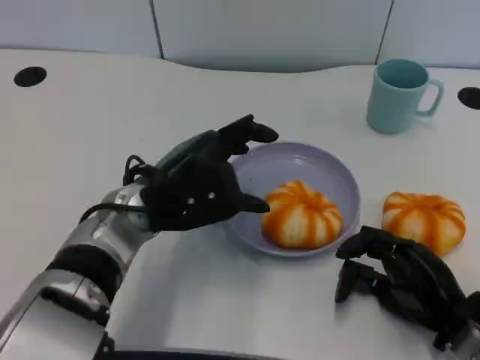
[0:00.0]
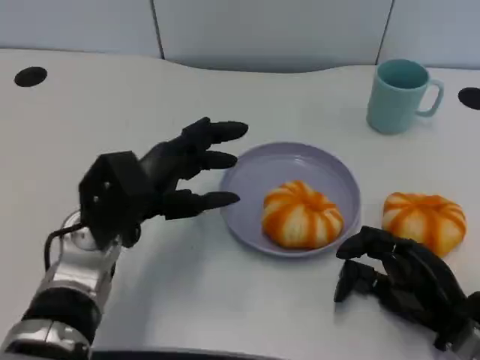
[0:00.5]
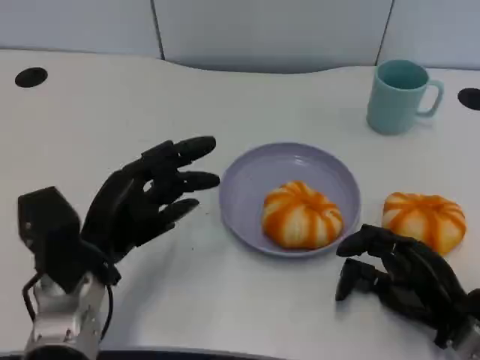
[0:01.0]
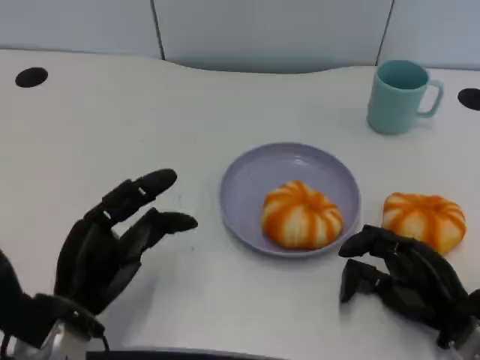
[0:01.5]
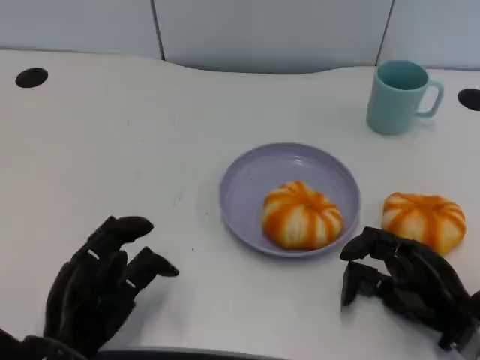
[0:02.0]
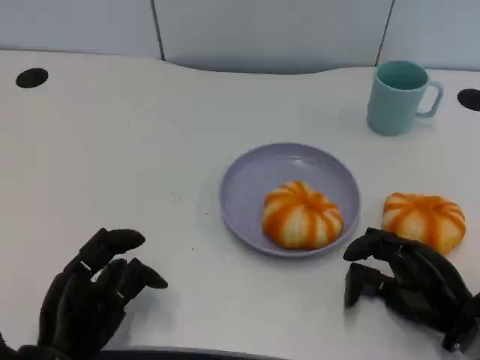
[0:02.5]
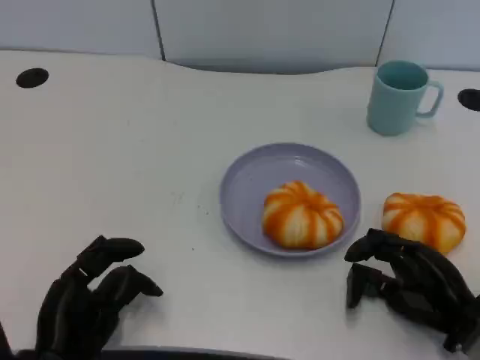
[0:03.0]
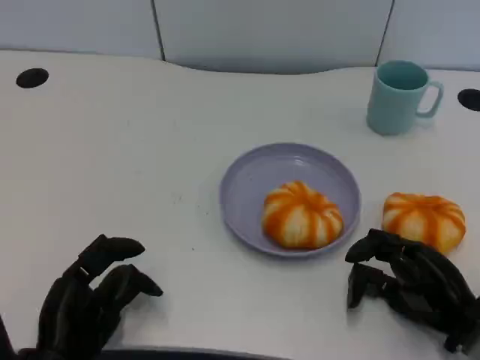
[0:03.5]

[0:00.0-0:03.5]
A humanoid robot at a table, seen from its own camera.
Task of the whole recording: Grasp the bread from the table and place it into the plate.
0:00.0 to 0:02.0: The left hand heads backward, to the left and downward, covering about 20 cm.
0:02.0 to 0:03.5: The hands make only small movements.

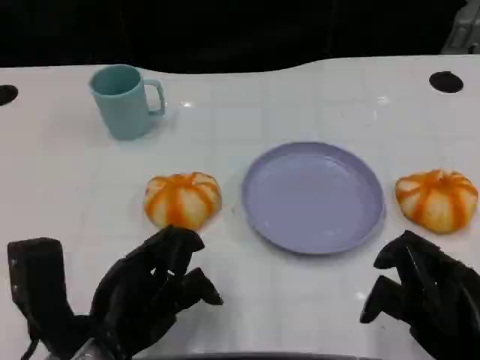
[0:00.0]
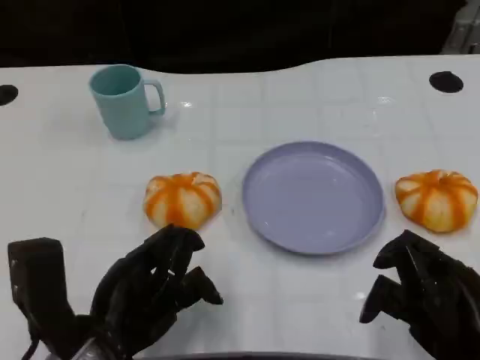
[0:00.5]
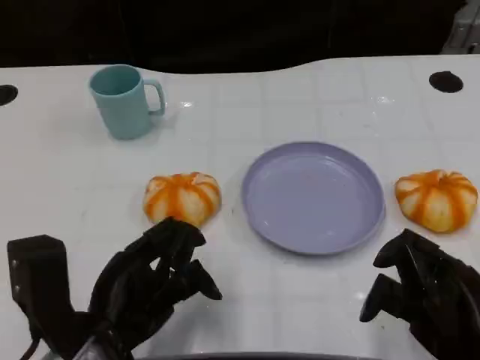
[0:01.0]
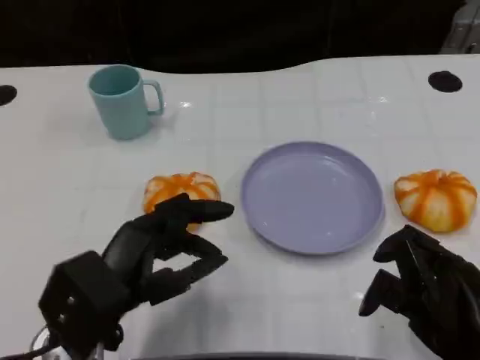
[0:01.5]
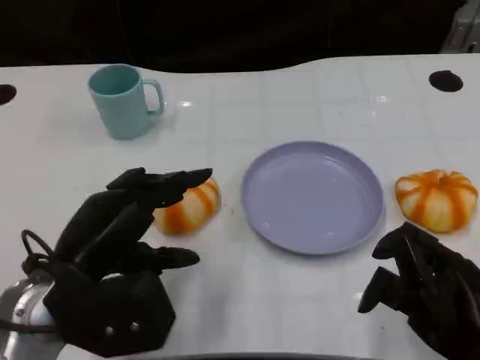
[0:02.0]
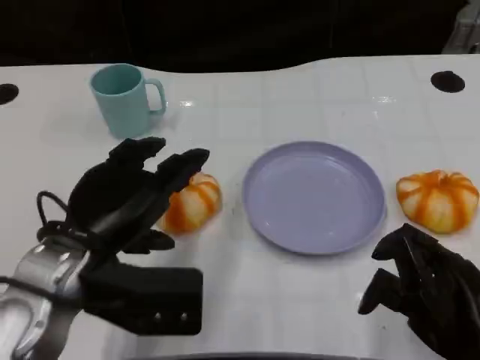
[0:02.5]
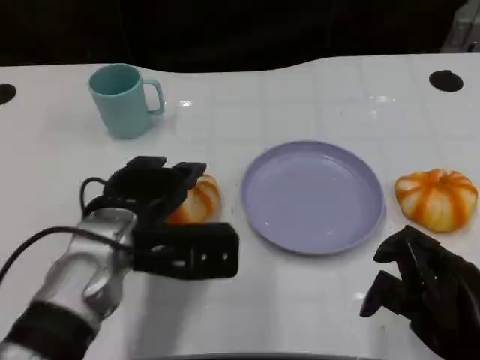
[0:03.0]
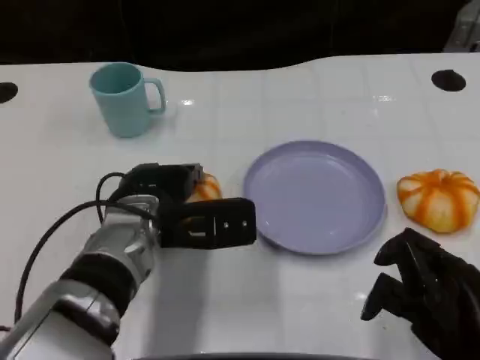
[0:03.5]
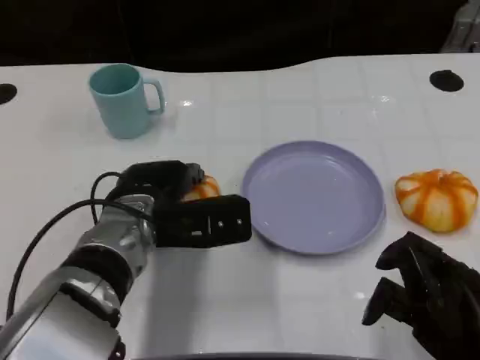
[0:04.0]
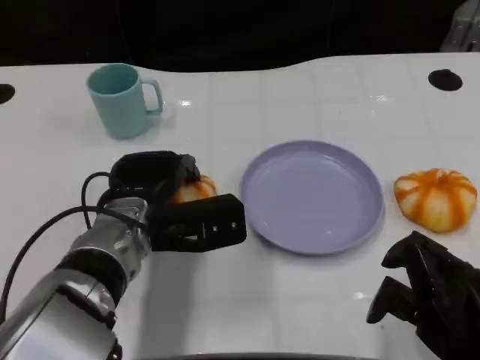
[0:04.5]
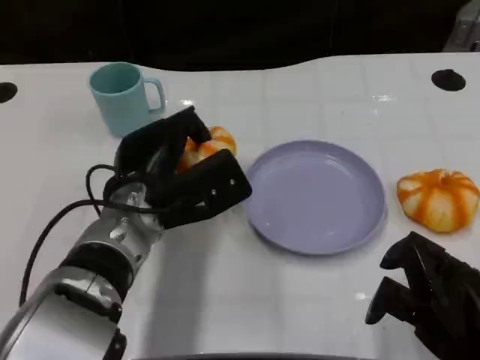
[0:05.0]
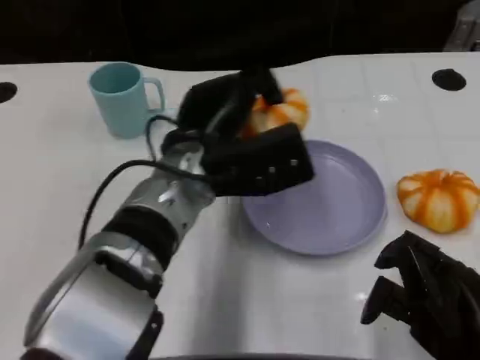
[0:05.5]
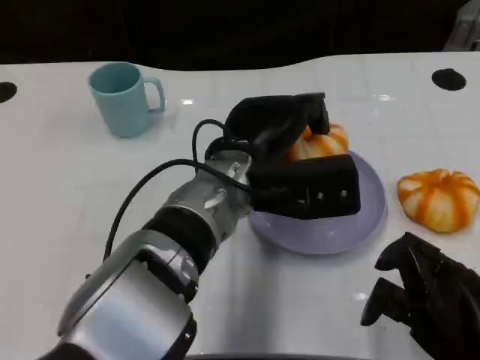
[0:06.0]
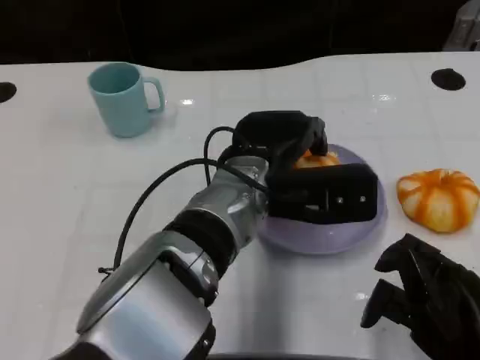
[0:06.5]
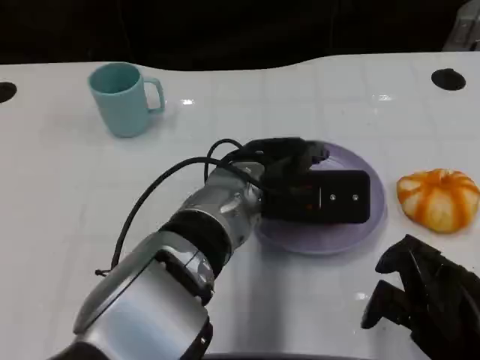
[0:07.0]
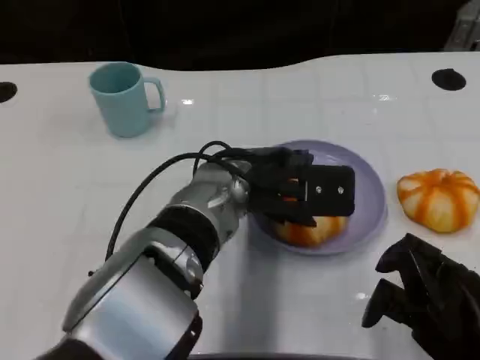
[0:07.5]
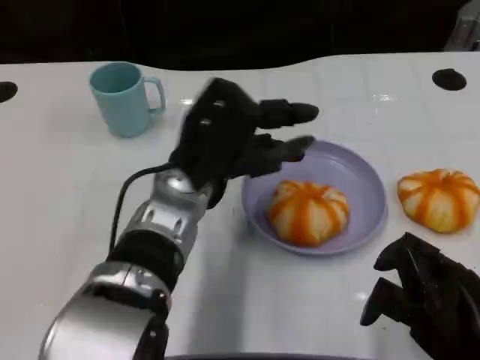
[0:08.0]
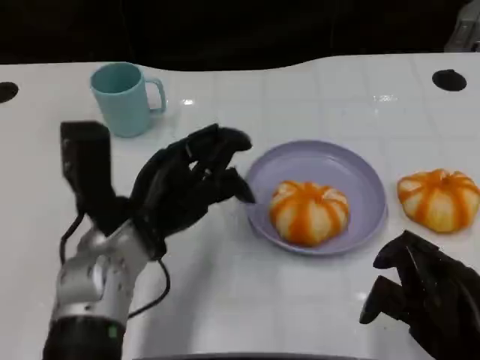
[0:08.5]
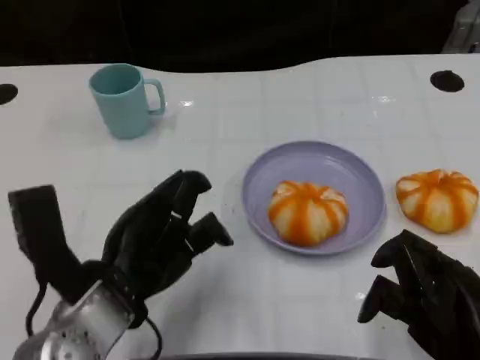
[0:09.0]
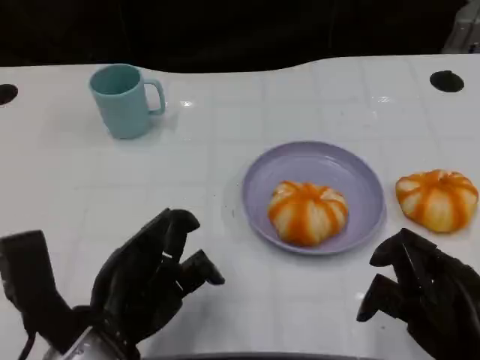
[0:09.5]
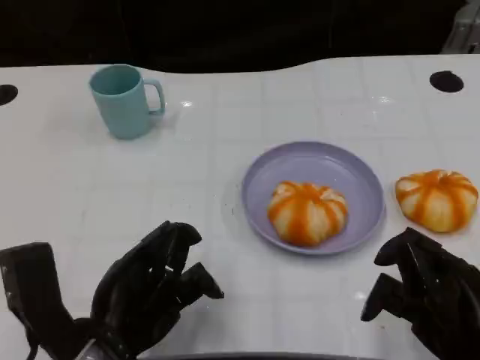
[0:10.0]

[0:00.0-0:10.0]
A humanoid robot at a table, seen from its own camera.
Task of the whole recording: Grasp the bread from the table and place it into the plate.
0:00.0 to 0:02.0: The left hand ends up roughly 5 cm from where it was.
0:02.0 to 0:04.0: The left hand moves forward and to the right, some 10 cm.
0:04.0 to 0:06.0: The left hand moves to the right and upward, about 10 cm.
0:06.0 to 0:08.0: The left hand moves to the left, about 5 cm.
0:08.0 to 0:10.0: The left hand goes approximately 15 cm backward and to the left.

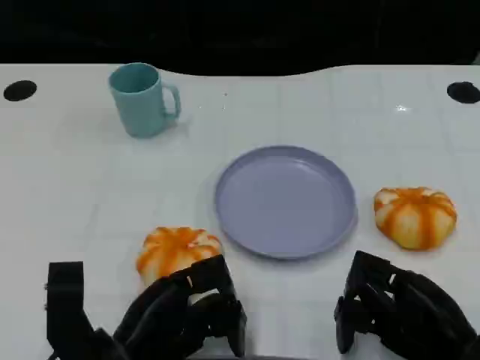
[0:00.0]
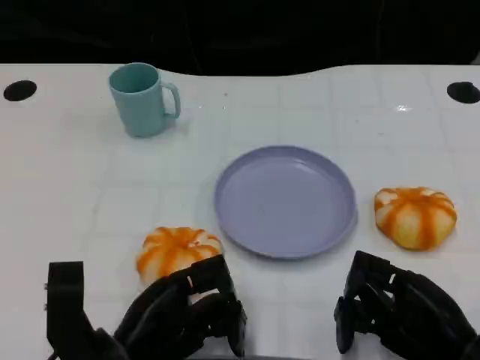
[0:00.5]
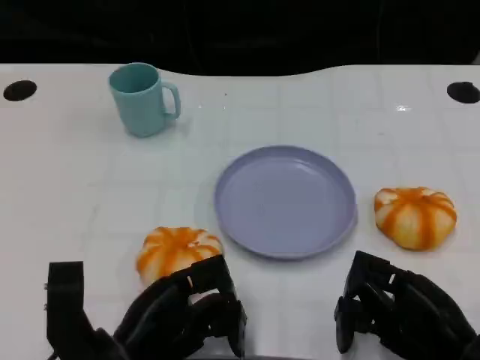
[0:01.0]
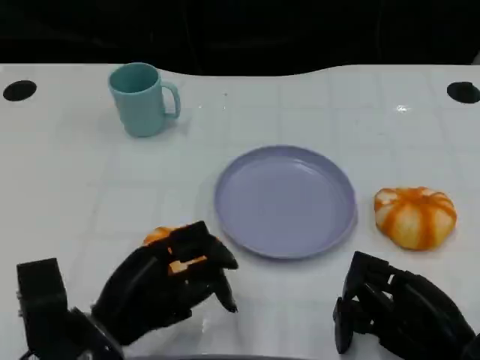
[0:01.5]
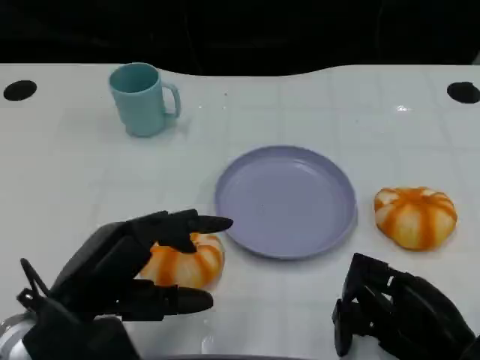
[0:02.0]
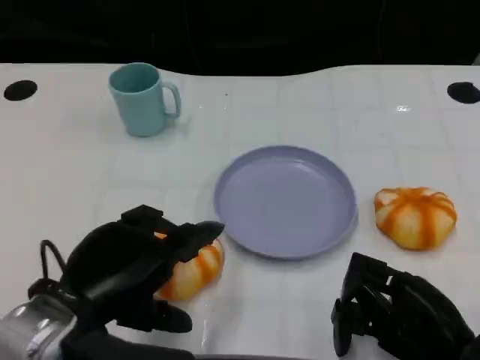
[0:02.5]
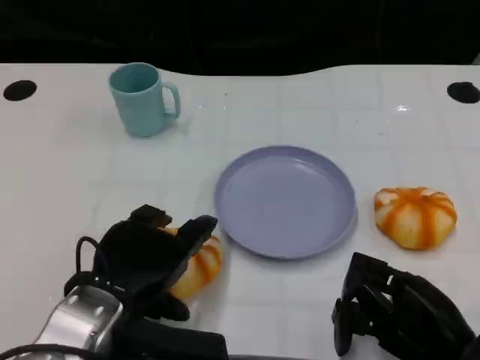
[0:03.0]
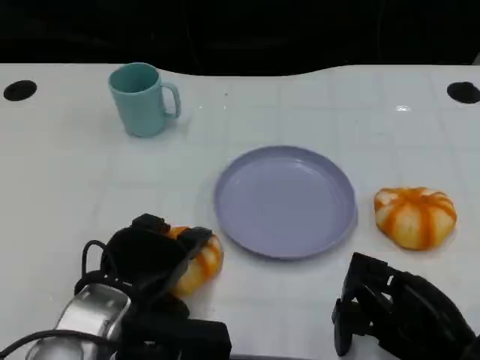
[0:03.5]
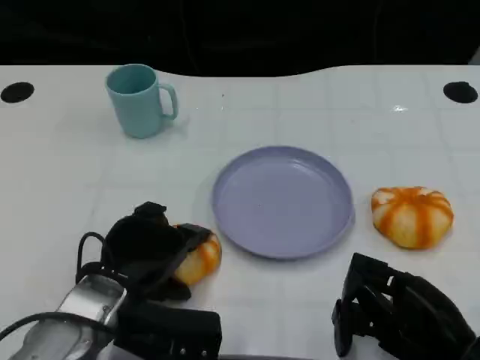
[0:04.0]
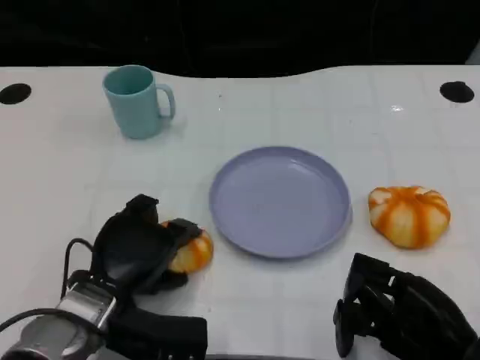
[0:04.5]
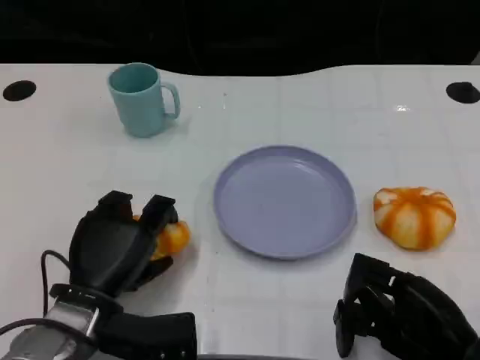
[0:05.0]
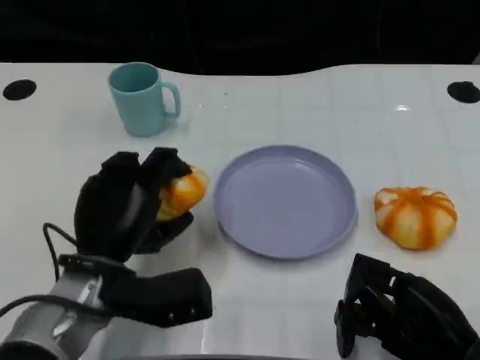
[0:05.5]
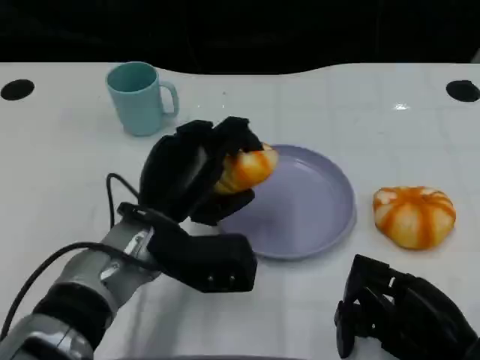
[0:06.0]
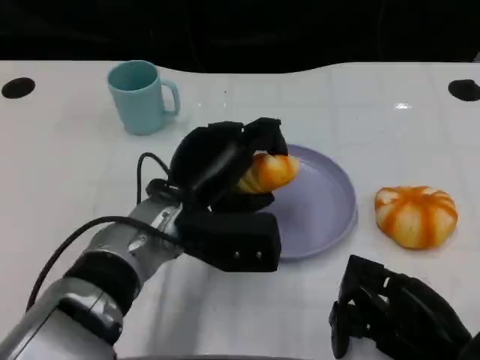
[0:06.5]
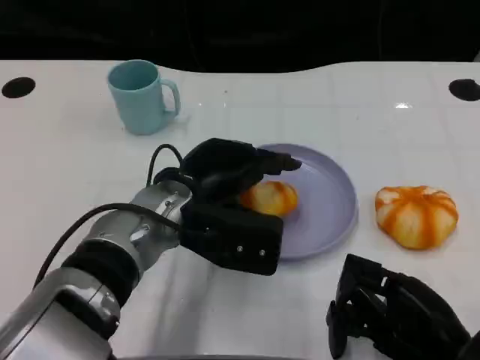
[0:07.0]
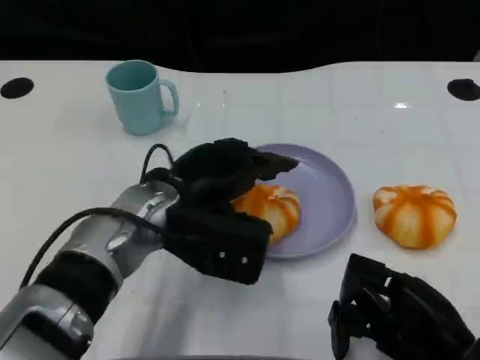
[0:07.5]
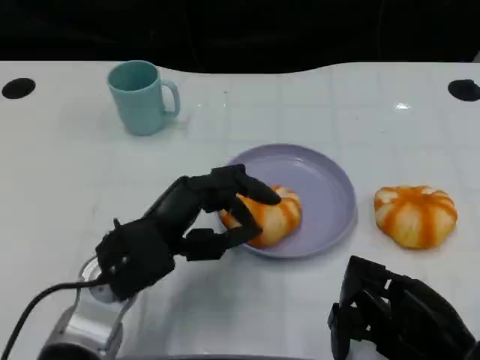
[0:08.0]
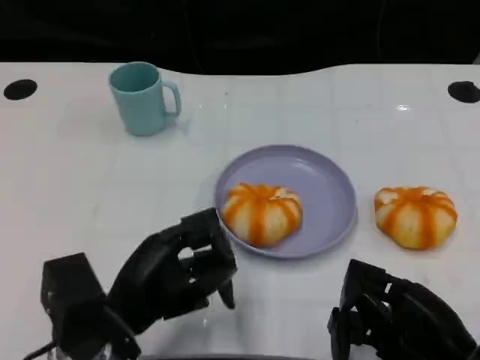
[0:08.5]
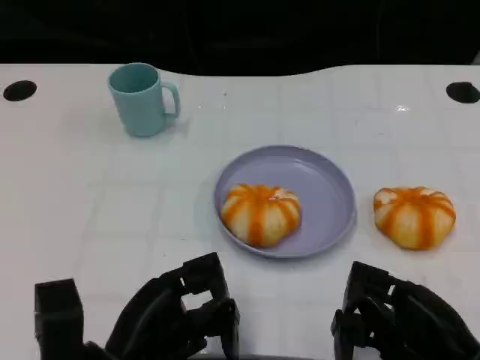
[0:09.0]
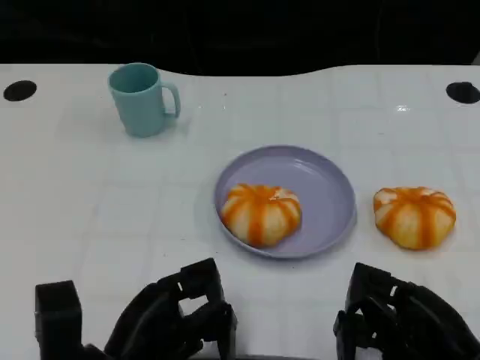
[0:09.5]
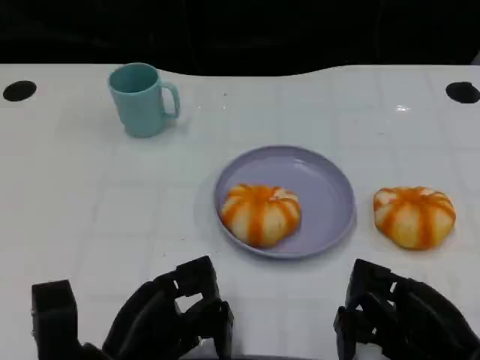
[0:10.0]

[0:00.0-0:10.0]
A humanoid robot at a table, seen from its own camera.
Task of the whole recording: Grasp the bread from the table and place it into the plate.
0:00.0 to 0:02.0: The left hand shifts about 10 cm upward.
0:02.0 to 0:04.0: The left hand moves downward and forward, about 10 cm.
0:04.0 to 0:06.0: The left hand travels to the right by roughly 5 cm.
0:08.0 to 0:10.0: The left hand goes approximately 10 cm backward.
